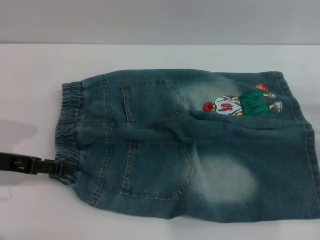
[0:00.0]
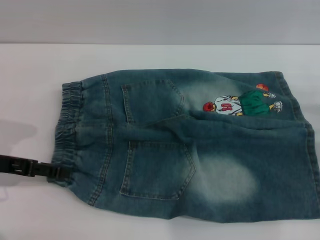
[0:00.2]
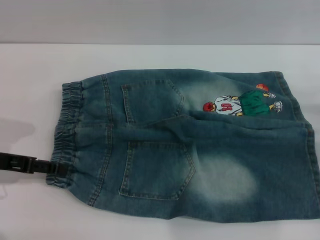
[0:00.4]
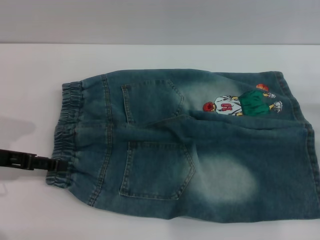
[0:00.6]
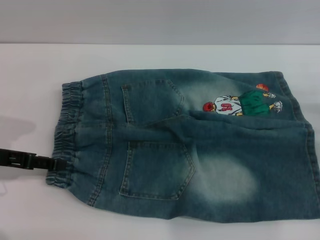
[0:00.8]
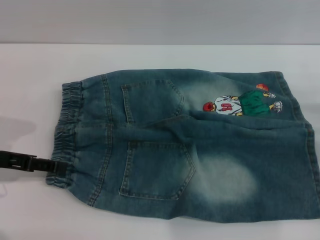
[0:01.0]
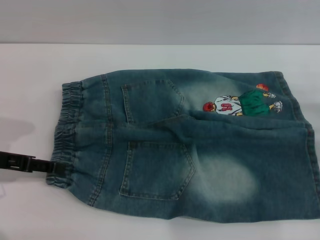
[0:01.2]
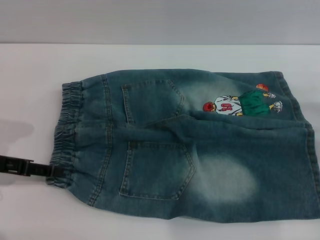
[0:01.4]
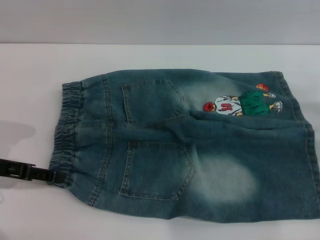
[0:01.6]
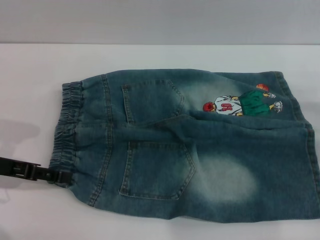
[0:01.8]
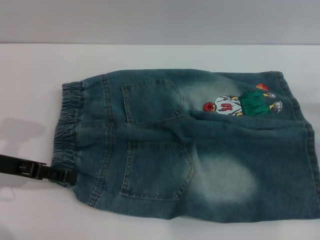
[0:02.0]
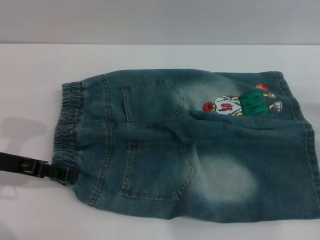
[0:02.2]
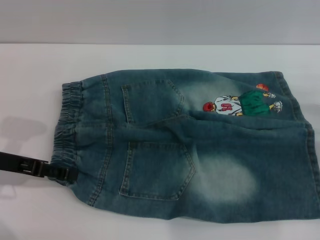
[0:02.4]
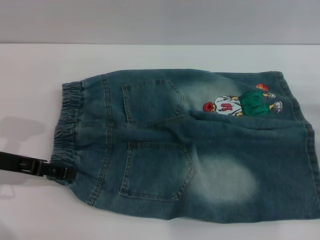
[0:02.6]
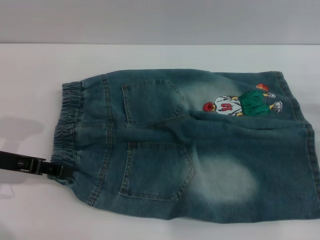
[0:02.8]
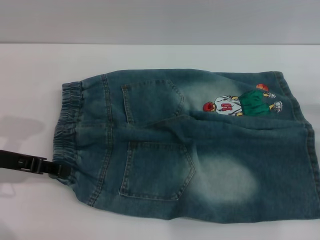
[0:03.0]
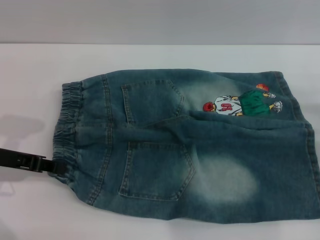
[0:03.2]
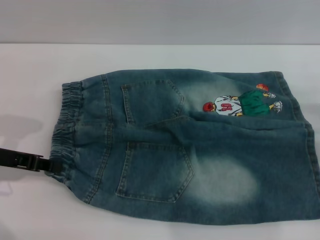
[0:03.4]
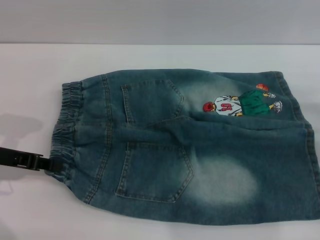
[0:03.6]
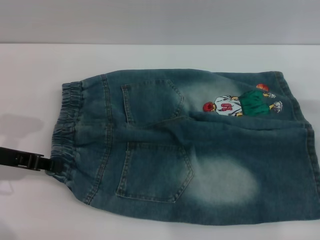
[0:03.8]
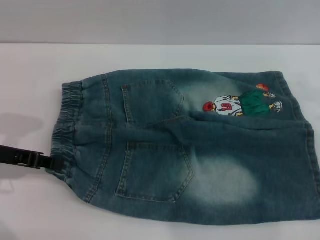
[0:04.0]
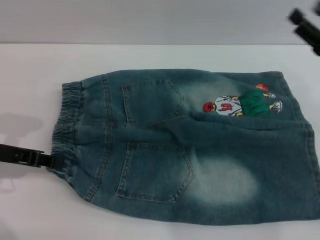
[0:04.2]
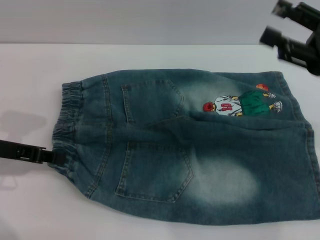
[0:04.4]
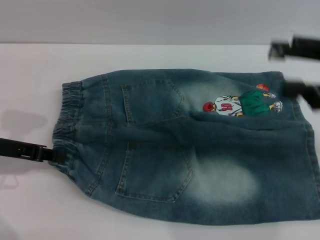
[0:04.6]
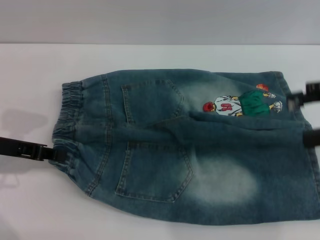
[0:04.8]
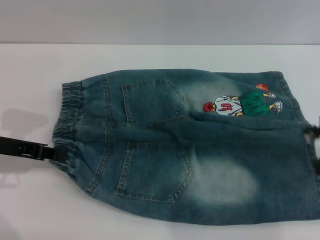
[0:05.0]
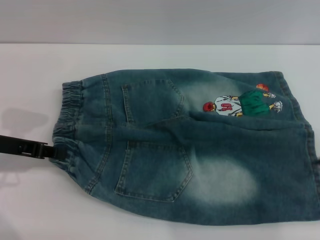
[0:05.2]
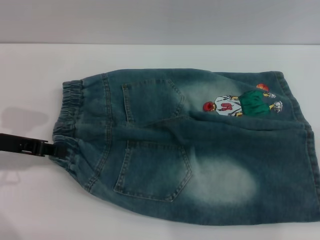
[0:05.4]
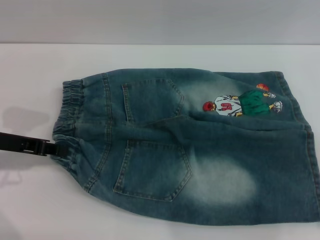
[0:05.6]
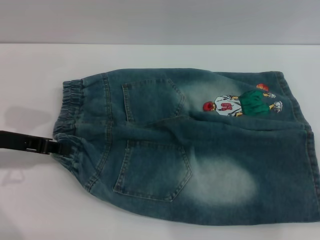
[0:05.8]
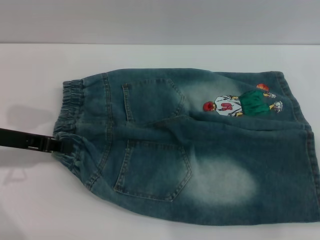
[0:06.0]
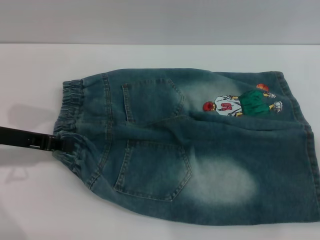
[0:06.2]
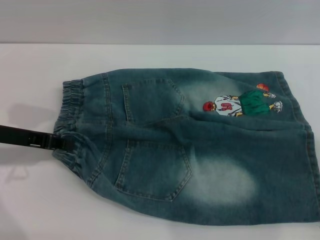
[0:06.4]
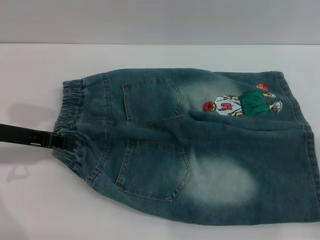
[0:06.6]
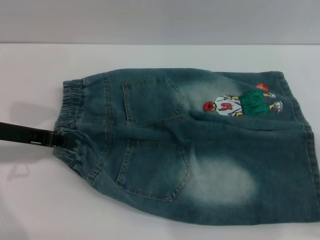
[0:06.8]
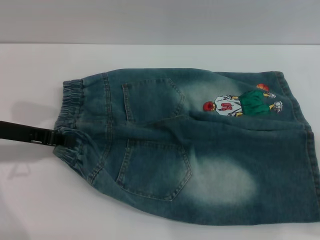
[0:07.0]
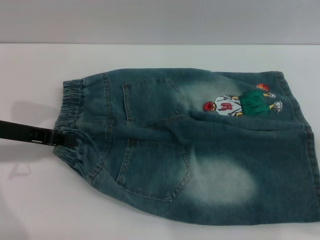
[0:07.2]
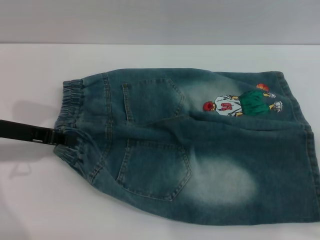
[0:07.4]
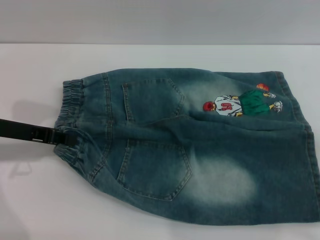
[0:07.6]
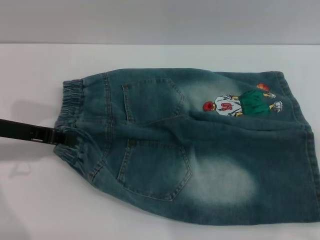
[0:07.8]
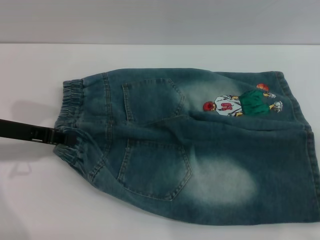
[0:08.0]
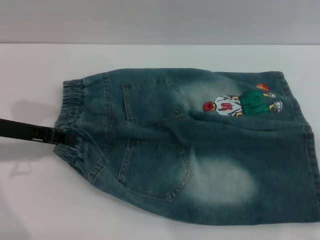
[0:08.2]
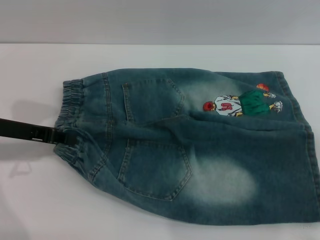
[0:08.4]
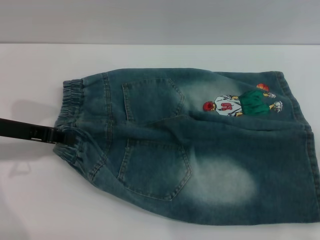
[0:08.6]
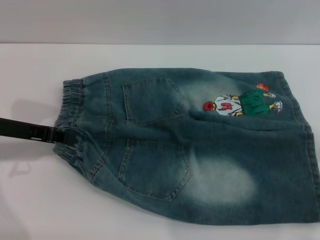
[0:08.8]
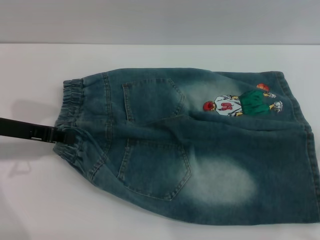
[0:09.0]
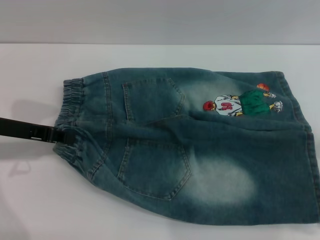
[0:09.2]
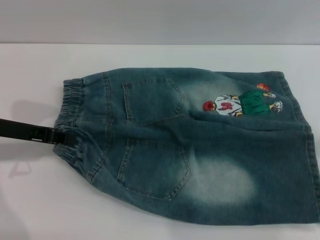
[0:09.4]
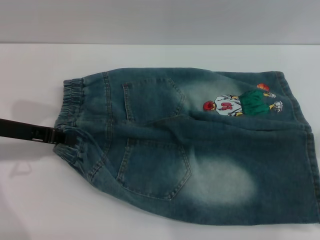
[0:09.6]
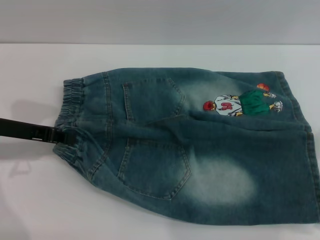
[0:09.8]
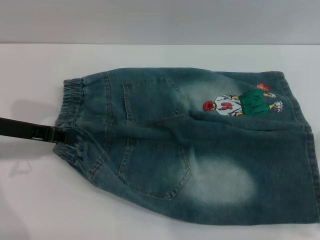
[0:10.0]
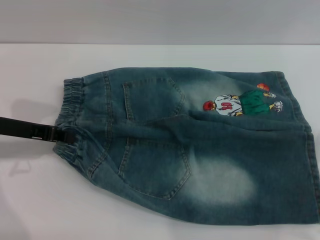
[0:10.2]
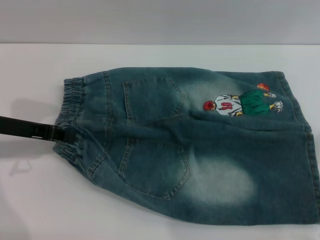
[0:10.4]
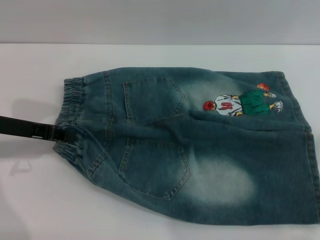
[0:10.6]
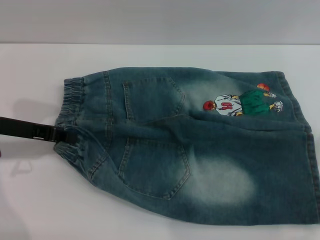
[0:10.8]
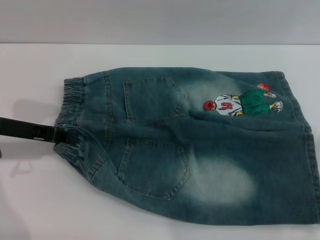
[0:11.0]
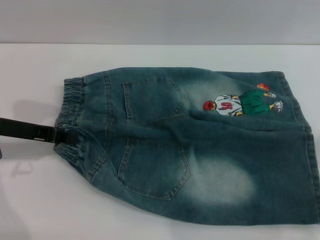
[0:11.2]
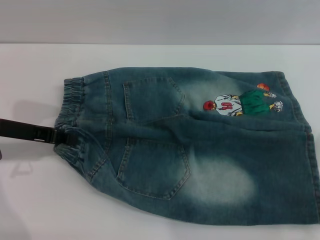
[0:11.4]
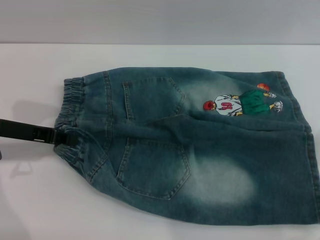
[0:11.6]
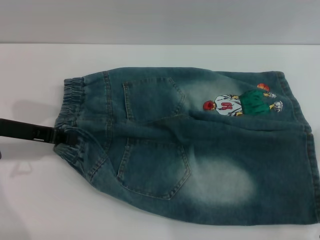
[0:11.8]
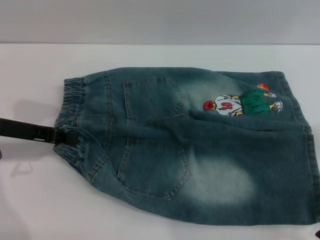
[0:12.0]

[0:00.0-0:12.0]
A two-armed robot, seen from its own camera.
0:00.0 to 0:03.0: The grippers move only a little.
0:03.0 to 0:04.4: The left gripper closes; the right gripper moves upward and to the left, approximately 15 cm.
0:04.4 to 0:06.0: The right gripper moves to the right, some 10 cm.
0:06.0 to 0:07.6: There are only small adjustments of the grippers.
0:07.6 to 0:09.0: Both grippers stay about where they are.
0:09.0 to 0:12.0: The grippers stay close to where they were, moving slightly.

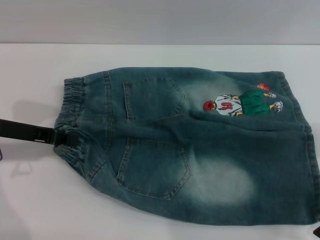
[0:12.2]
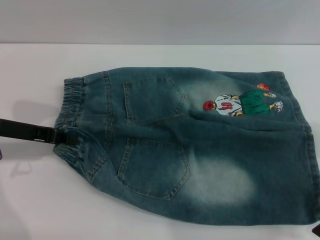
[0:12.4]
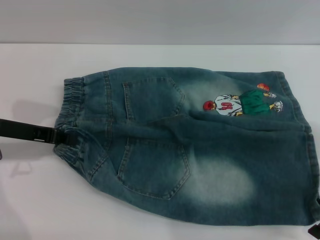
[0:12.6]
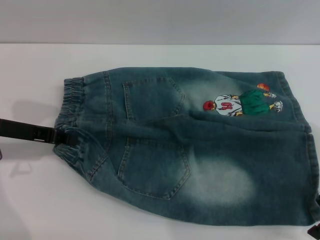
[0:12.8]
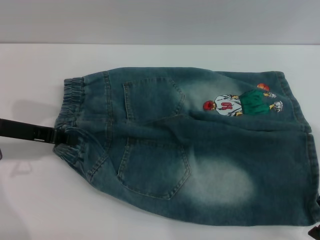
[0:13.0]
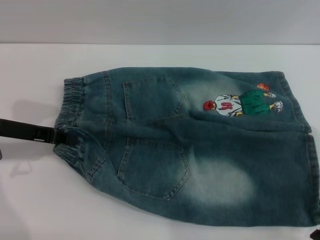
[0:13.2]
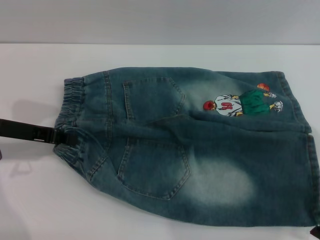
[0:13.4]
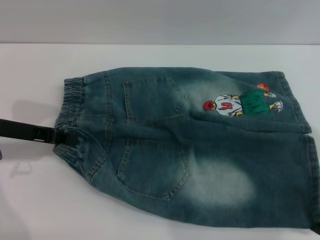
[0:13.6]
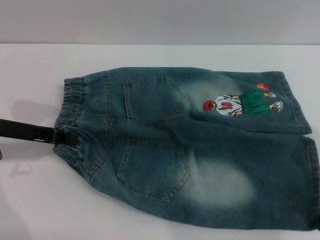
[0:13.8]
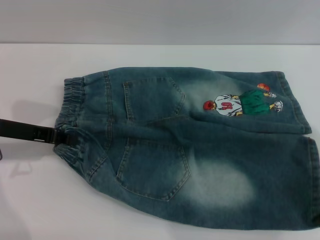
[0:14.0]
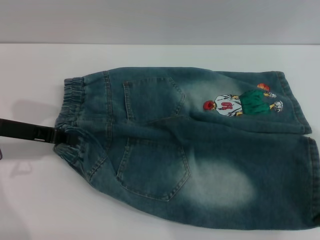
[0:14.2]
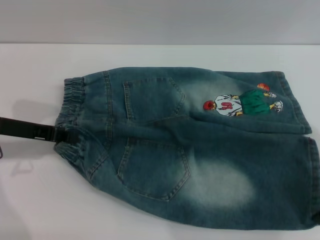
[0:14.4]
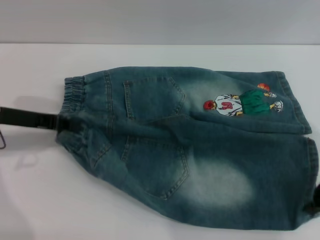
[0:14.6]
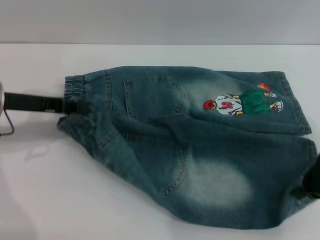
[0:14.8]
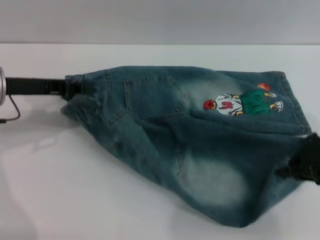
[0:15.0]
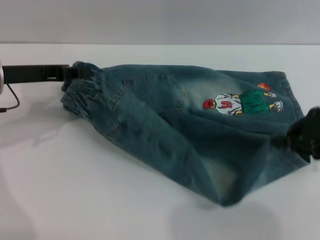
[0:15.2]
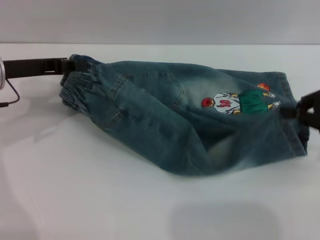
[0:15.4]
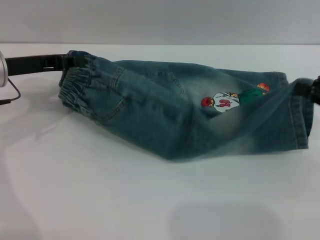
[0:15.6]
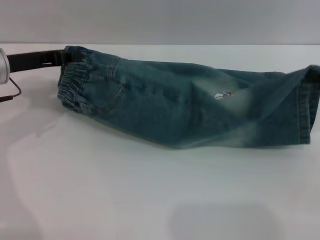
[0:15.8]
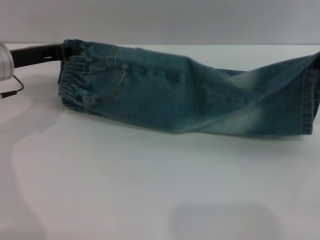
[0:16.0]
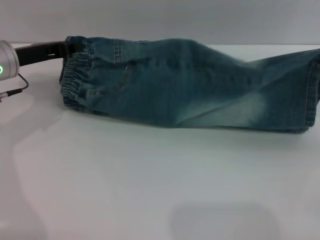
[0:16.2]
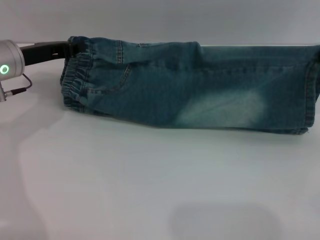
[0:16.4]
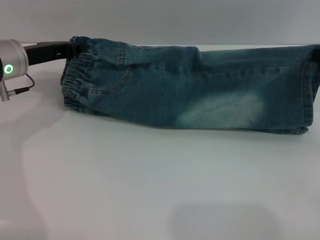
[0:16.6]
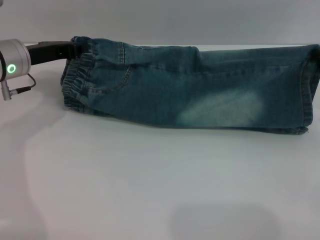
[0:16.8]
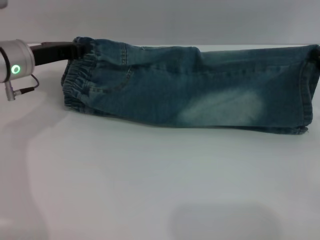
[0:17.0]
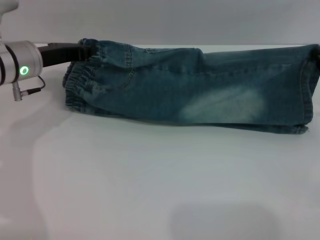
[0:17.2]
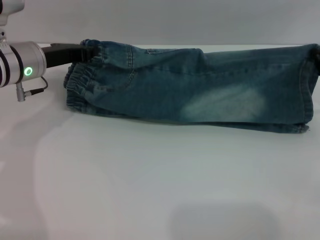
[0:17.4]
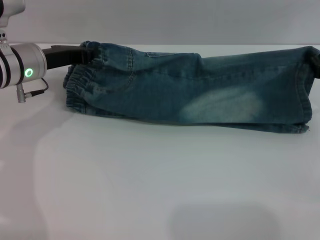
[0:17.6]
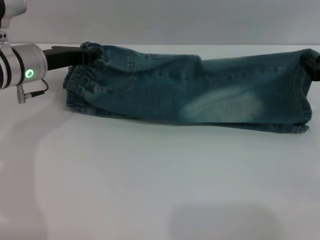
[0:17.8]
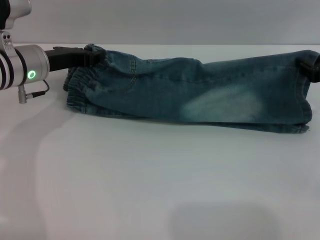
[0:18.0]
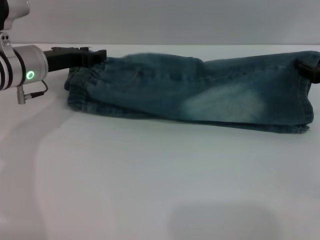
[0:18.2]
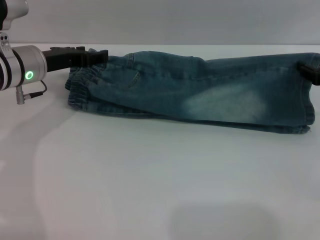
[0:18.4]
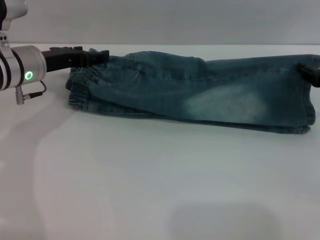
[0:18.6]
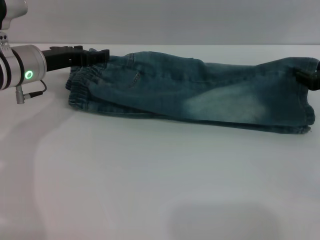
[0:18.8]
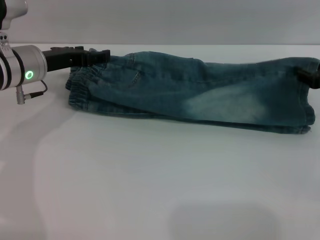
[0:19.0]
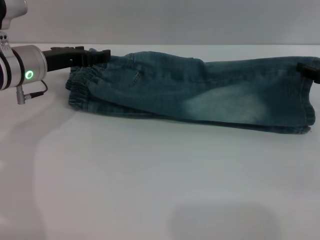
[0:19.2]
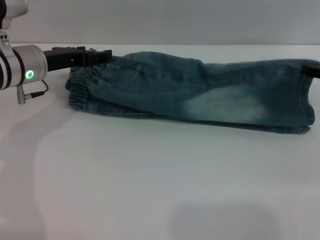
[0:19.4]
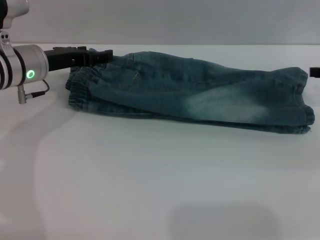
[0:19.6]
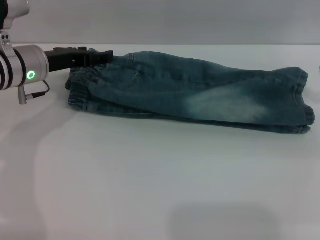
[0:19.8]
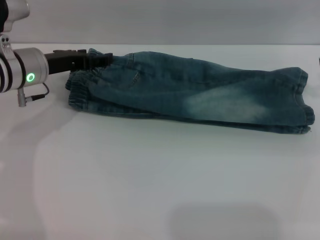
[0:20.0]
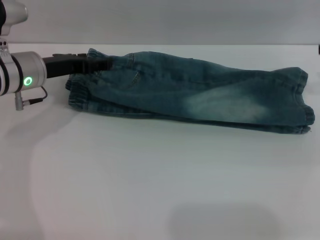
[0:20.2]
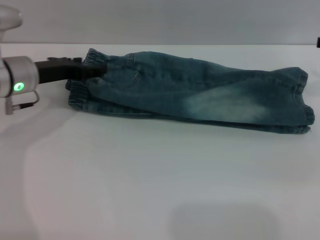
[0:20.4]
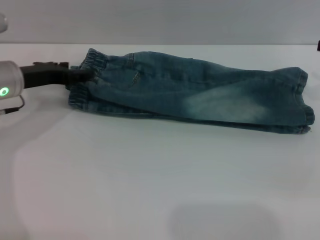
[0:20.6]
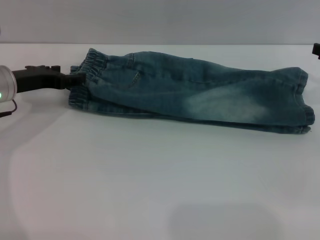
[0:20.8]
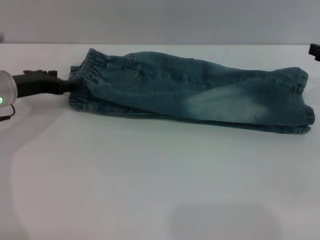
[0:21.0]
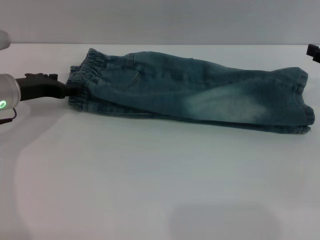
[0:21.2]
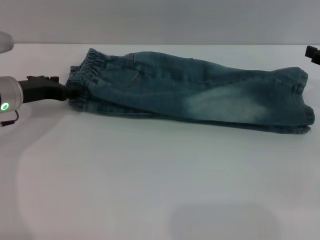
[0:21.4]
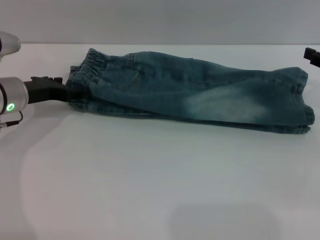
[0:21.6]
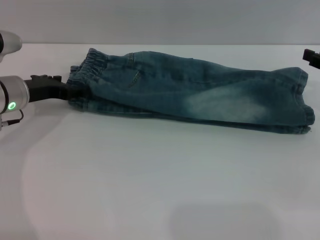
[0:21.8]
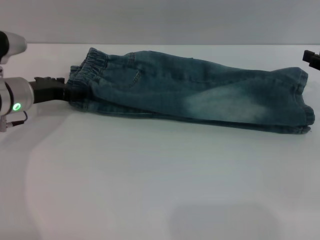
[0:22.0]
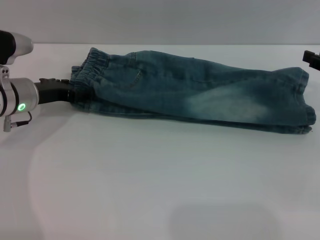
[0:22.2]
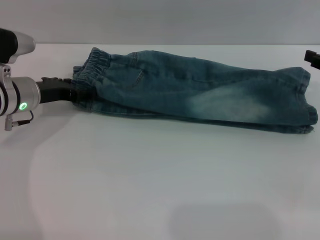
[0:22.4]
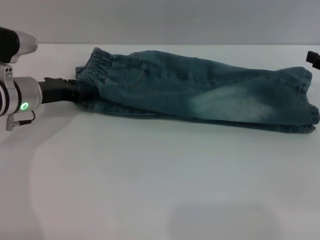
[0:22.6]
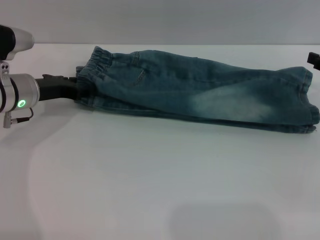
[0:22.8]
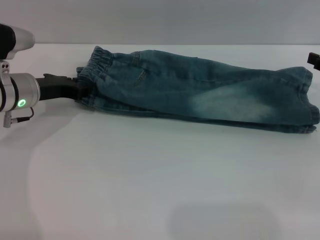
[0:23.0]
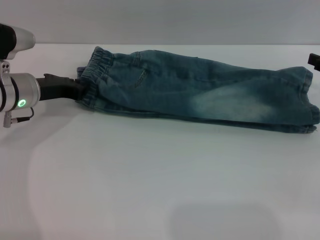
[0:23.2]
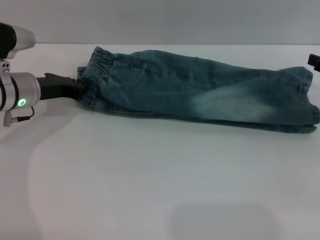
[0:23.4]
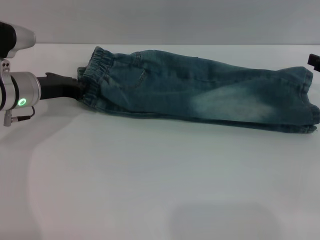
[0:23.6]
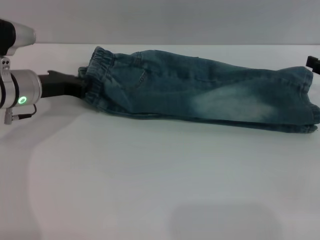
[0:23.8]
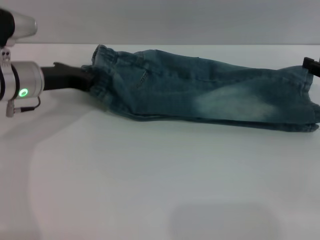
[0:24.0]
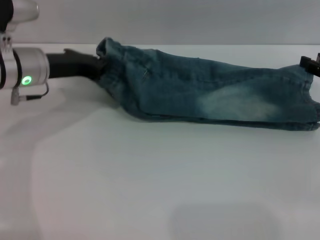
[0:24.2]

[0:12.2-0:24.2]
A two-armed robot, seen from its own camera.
Step, 0:12.2 to 0:19.8: Fold the bottom of the pants upward with both grippers.
0:12.2 to 0:13.8: The right gripper closes.
0:13.8 to 0:15.2: The right gripper closes its fingers. The left gripper moves approximately 5 cm.
0:15.2 to 0:16.6: The right gripper goes some 5 cm to the right.
0:16.6 to 0:18.2: The right gripper ends up some 5 cm from where it was, and opens up.
0:18.2 to 0:19.8: The right gripper is displaced upward by roughly 10 cm, while the left gripper opens up.
0:19.8 to 0:21.2: The left gripper moves approximately 5 cm.
0:21.2 to 0:22.6: The grippers stay close to where they were, moving slightly.
0:22.6 to 0:24.2: The left gripper is displaced upward by roughly 5 cm, and closes up.
